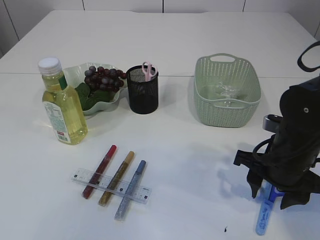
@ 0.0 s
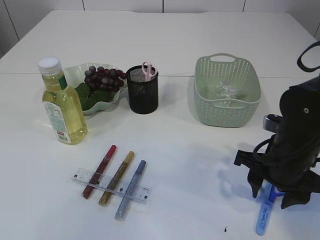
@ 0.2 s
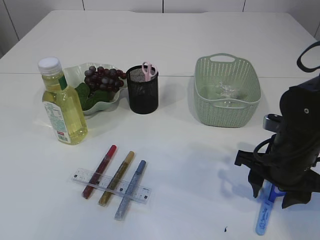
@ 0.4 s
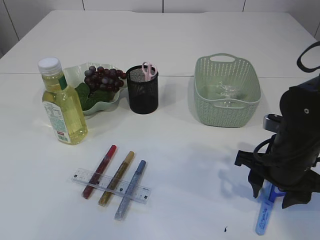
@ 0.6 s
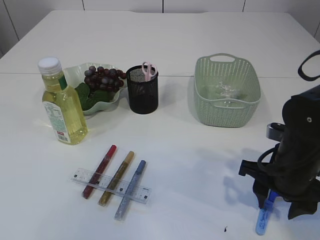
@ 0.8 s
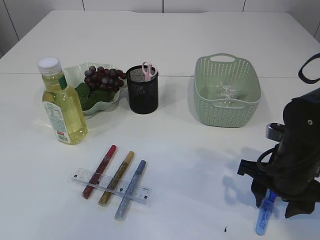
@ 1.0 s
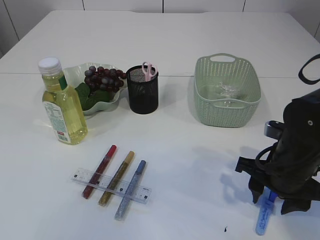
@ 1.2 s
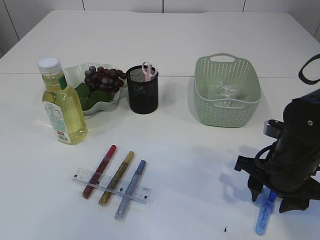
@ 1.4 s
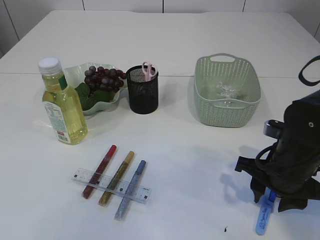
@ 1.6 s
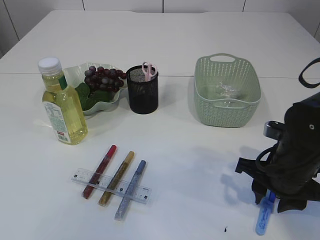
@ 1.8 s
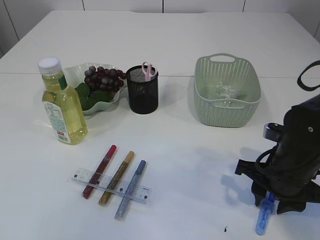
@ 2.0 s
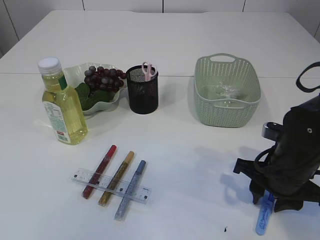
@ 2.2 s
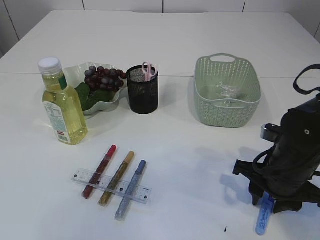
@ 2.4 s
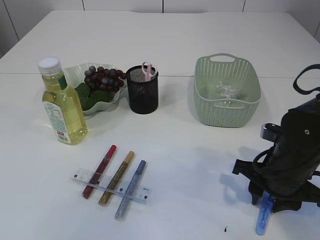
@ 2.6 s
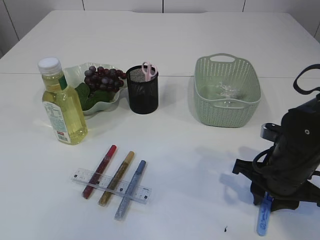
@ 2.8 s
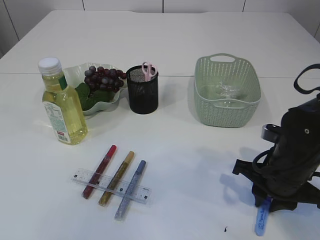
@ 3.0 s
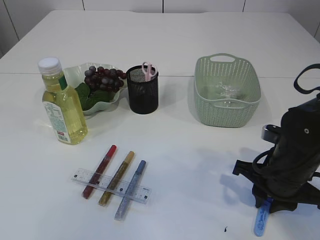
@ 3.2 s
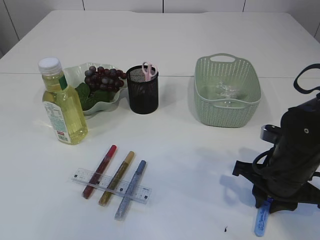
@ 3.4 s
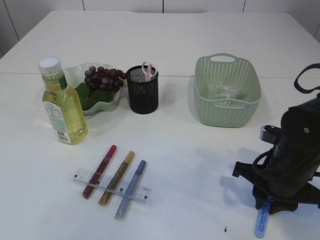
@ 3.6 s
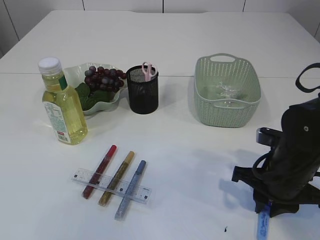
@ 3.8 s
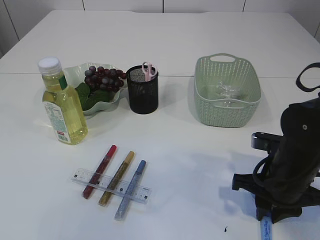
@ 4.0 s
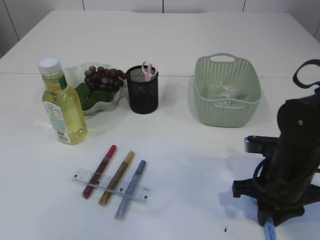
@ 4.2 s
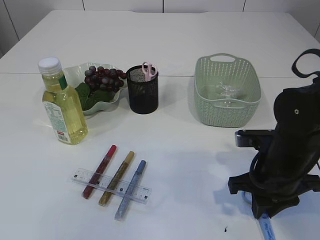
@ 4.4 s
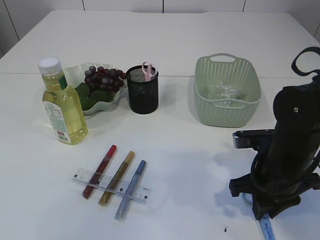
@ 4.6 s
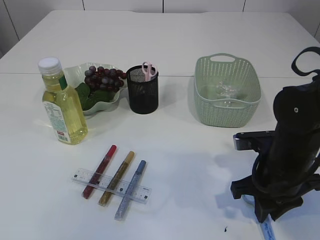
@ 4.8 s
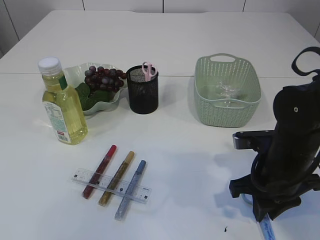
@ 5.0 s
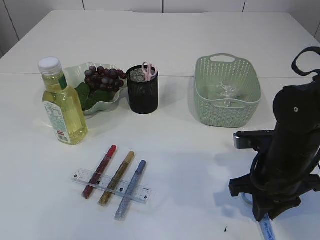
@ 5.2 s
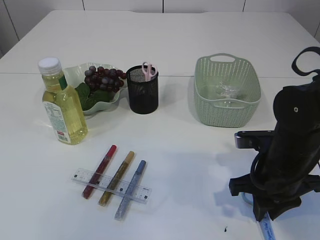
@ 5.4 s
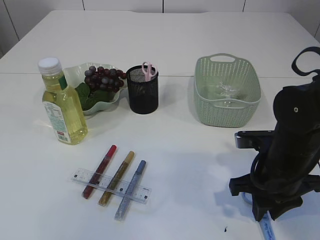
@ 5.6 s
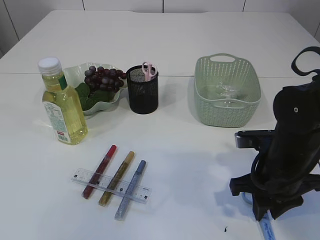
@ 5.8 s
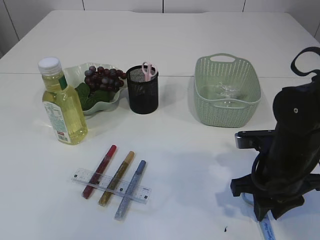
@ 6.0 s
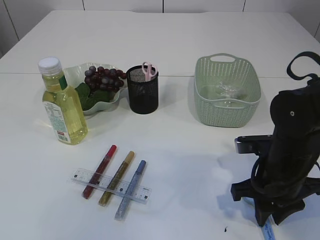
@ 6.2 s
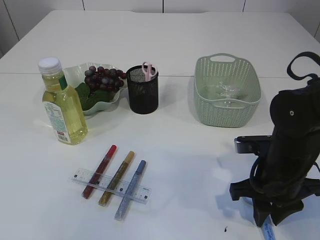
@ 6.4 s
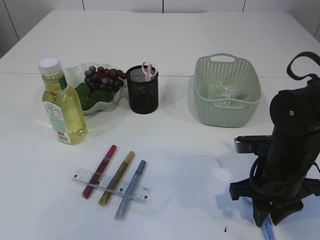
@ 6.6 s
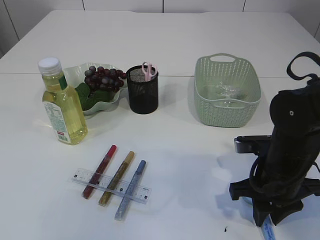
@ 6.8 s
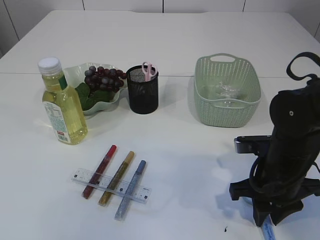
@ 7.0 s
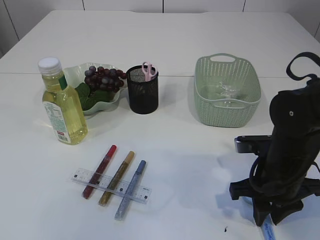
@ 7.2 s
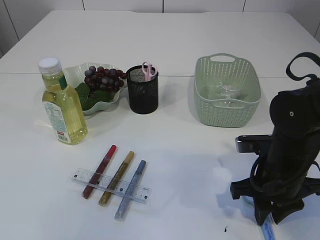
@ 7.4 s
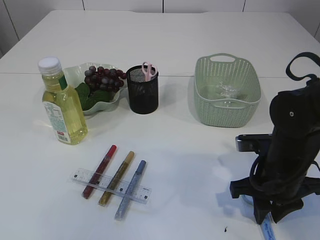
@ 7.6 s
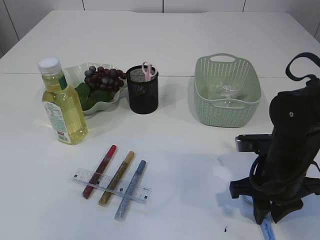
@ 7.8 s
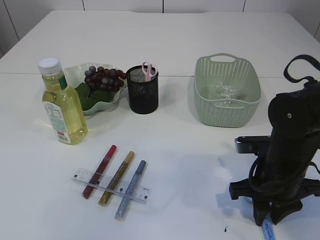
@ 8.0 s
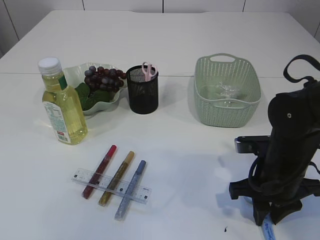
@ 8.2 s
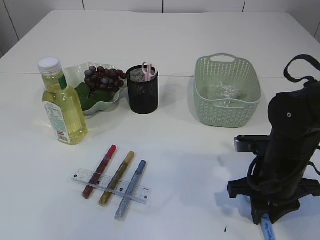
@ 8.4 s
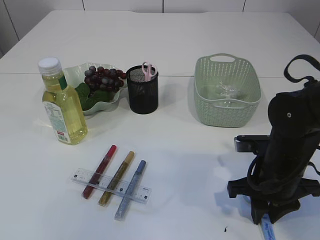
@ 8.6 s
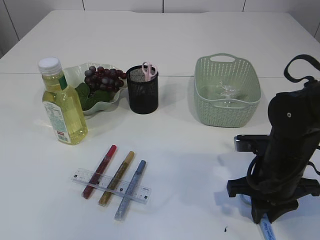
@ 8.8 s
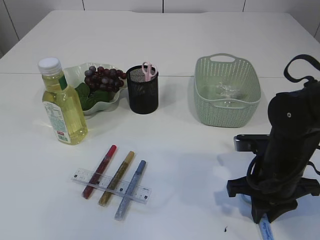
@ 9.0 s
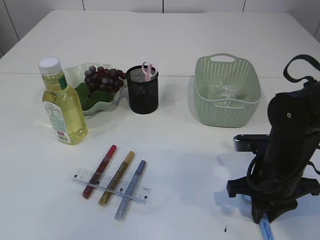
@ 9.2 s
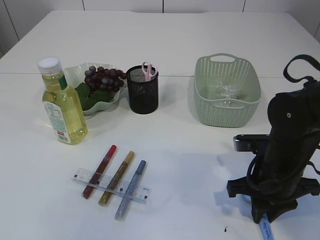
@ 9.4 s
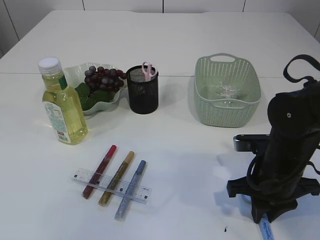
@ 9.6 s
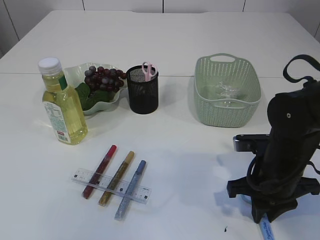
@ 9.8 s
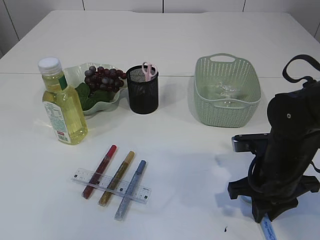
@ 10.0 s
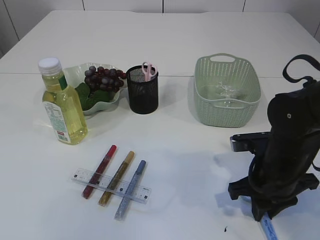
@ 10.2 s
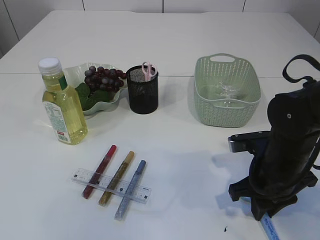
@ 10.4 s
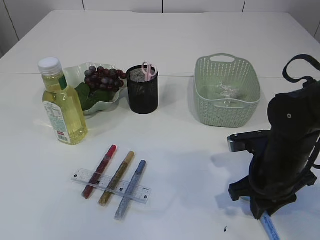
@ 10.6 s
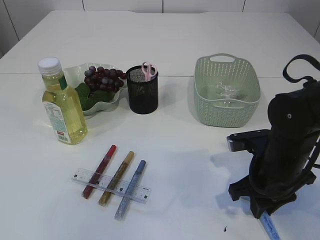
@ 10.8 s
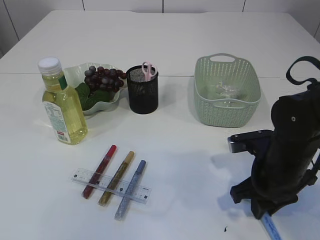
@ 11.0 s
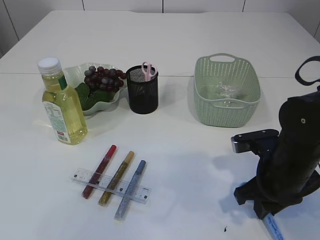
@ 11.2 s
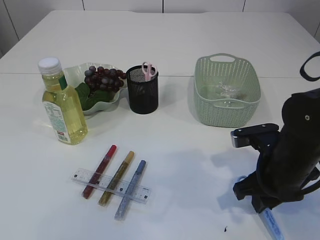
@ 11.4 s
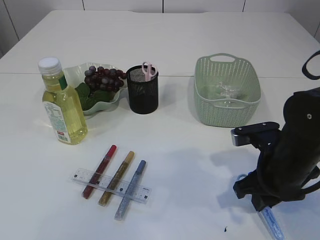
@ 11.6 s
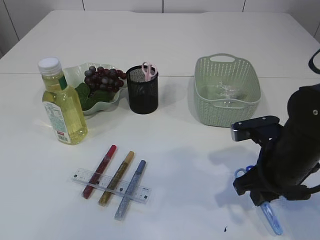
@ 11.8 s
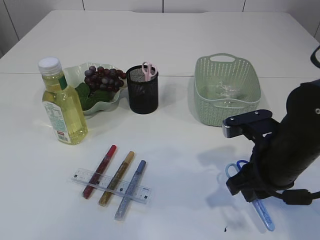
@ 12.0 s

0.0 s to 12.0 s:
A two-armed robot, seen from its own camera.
0.0 to 1.6 s: The grippers move only a little.
1.6 to 3.0 s: The two grippers keep their place.
4.4 to 6.0 s: The grippers move only a little.
6.0 to 9.0 s: Both grippers stay put.
9.0 to 10.4 s: The grippers make only small movements.
10.4 to 12.0 s: There are only small adjustments of the grippers.

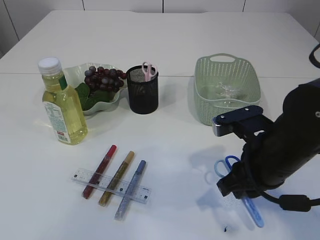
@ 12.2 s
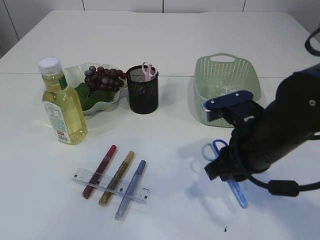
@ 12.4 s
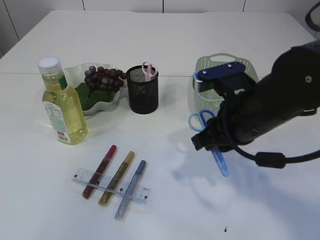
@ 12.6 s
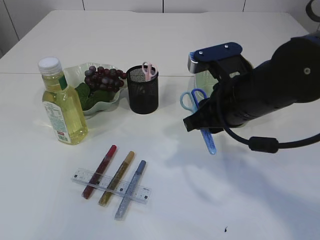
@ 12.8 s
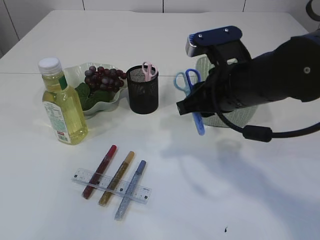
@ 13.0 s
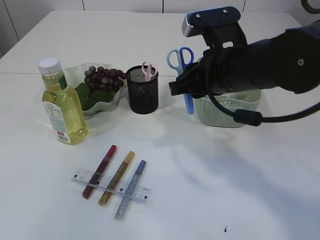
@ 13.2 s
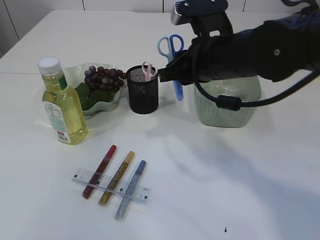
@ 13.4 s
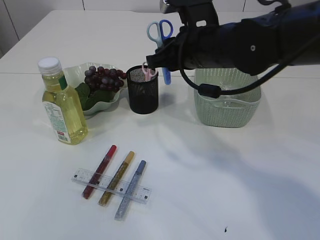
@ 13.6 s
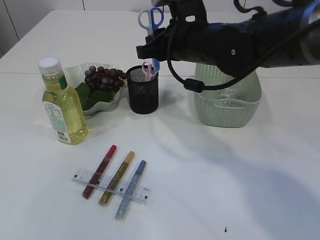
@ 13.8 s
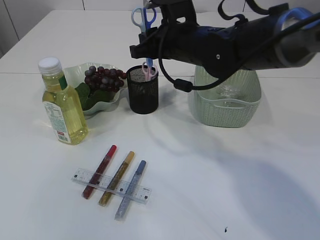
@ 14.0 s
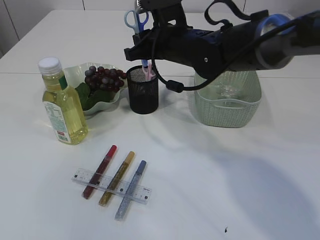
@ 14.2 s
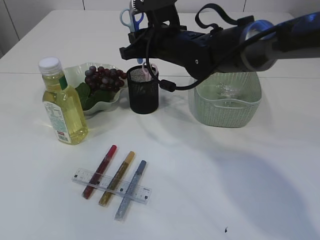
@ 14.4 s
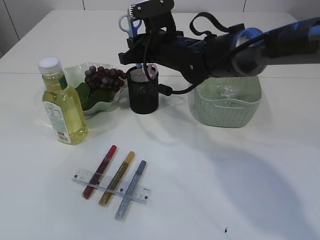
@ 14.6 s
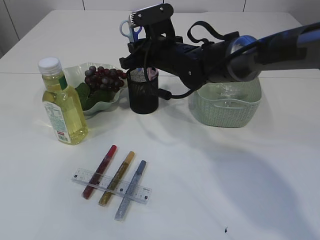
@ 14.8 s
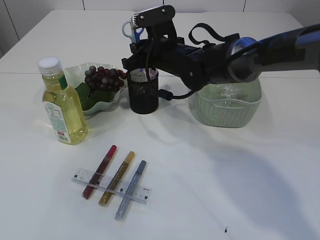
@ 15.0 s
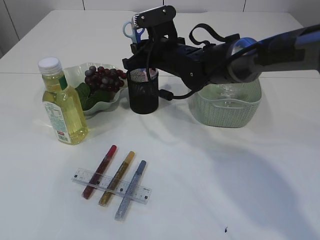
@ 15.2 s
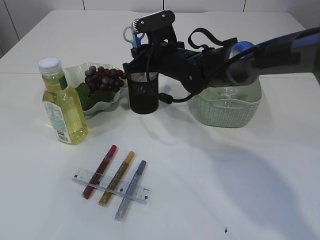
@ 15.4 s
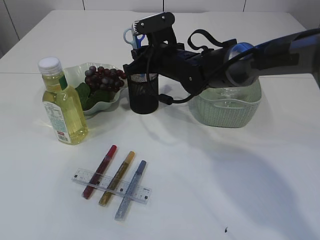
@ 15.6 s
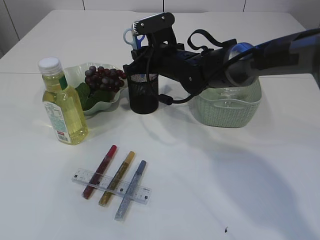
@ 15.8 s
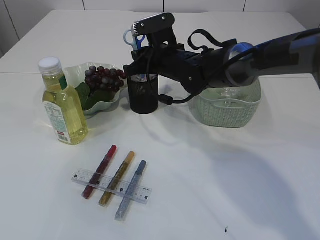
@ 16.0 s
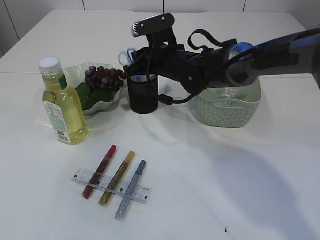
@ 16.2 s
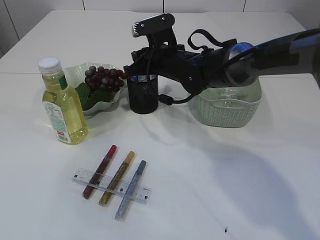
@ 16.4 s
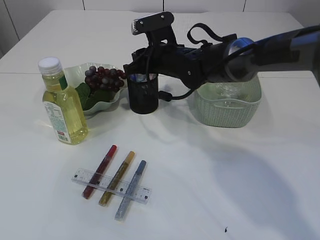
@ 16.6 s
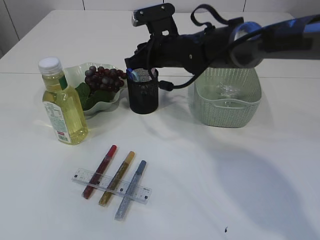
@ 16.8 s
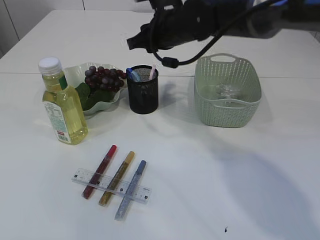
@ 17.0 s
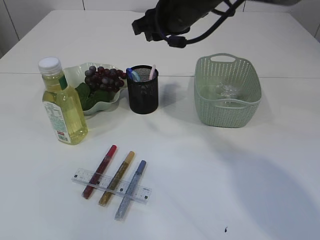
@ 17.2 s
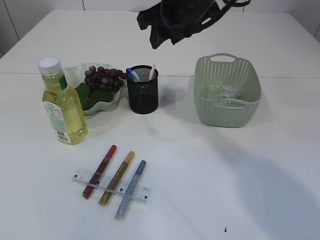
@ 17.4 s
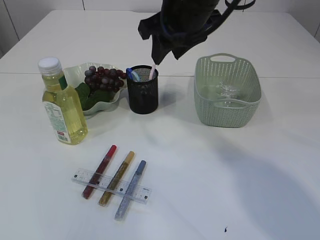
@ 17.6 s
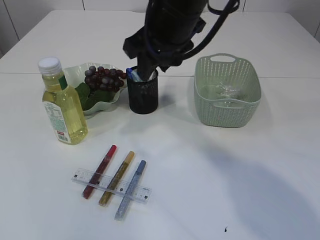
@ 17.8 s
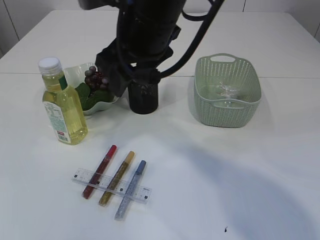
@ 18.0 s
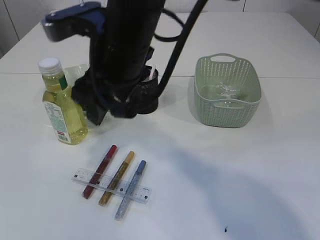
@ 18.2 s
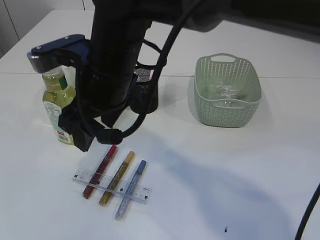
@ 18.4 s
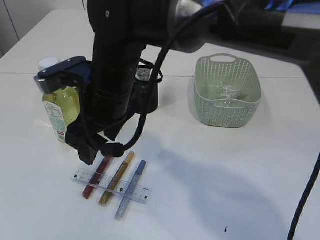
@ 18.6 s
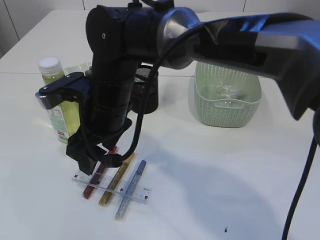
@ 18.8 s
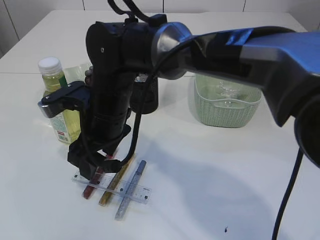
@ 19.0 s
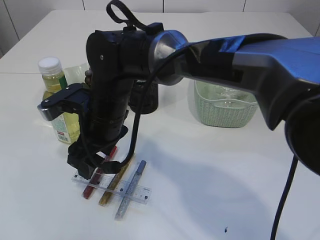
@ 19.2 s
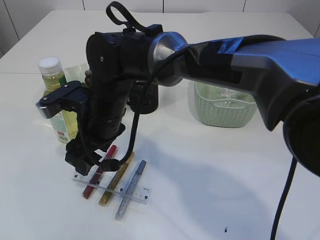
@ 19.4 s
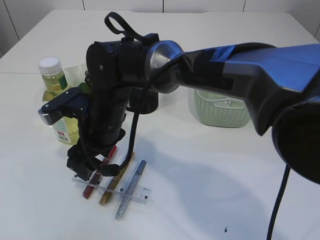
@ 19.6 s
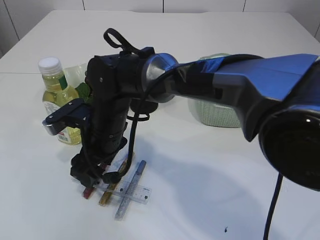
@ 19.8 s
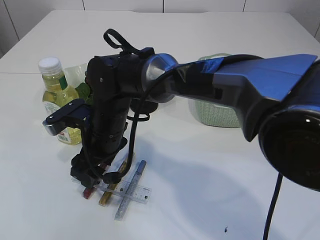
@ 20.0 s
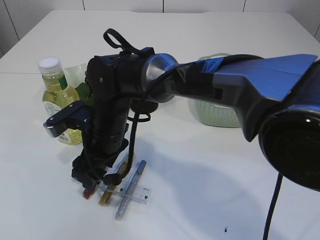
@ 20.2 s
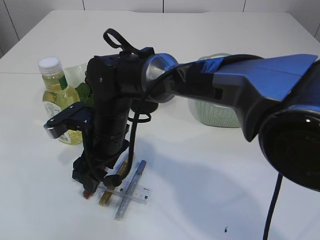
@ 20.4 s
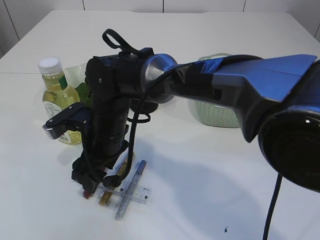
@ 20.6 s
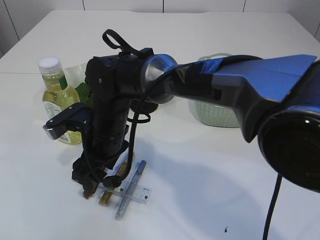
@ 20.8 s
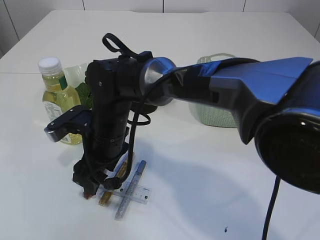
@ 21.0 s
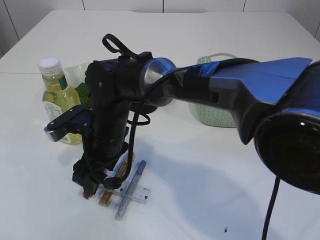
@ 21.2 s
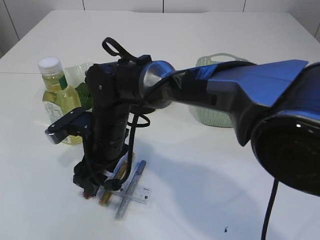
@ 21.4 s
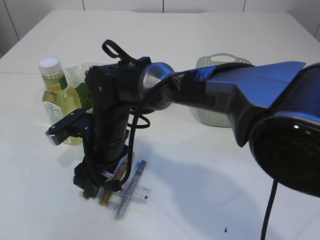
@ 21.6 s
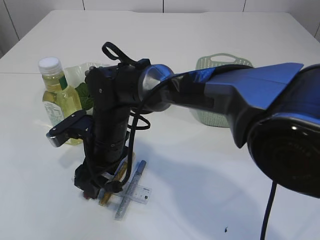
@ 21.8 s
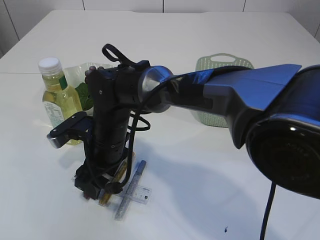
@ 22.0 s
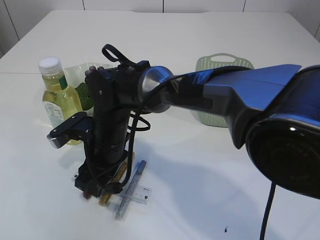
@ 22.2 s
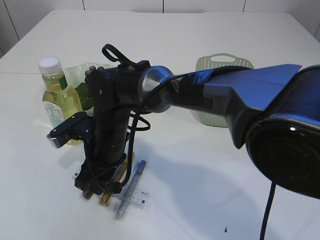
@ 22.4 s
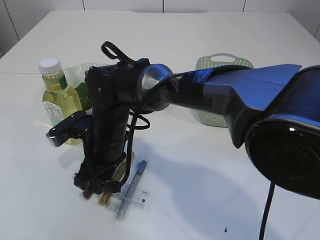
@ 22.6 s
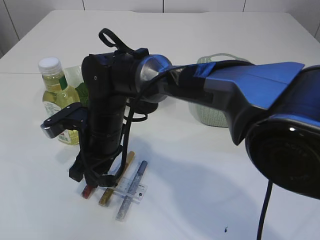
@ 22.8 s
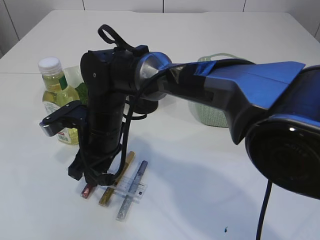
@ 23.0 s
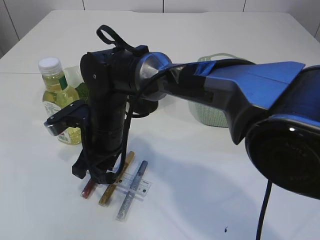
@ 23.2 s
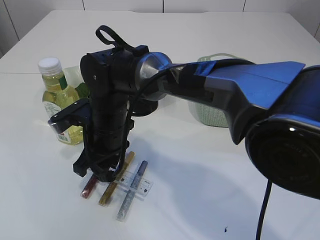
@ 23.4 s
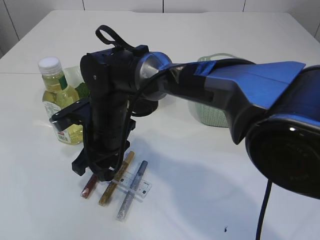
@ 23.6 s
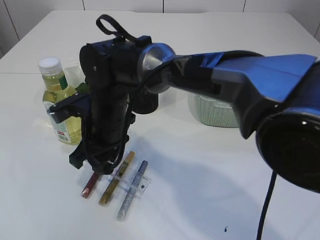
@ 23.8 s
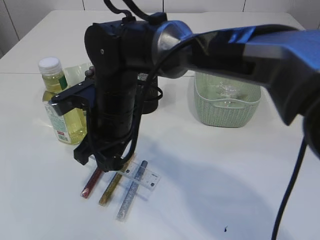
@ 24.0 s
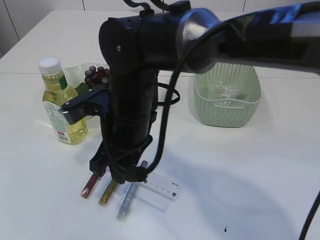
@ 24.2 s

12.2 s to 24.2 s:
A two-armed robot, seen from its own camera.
Step, 12.6 to 17.0 s: Place the blue scissors into the pen holder.
Step, 17.2 to 24.0 s: pick up the ruler.
12.2 to 13.8 s: The right gripper moves forward, upward and to the left, approximately 20 cm.
13.8 to 15.2 s: The right gripper is displaced forward and downward by roughly 10 cm.
15.2 to 16.6 s: The grippers stay close to where they were, moving slightly.
16.6 to 18.2 s: The right gripper travels backward, upward and to the left by approximately 20 cm, and opens up.
18.2 to 19.8 s: The right gripper heads downward, covering some 15 cm.
19.8 to 21.2 s: Both grippers stay put.
21.2 to 22.6 s: The right gripper closes up.
22.6 to 24.2 s: The right gripper is displaced upward by about 10 cm.
